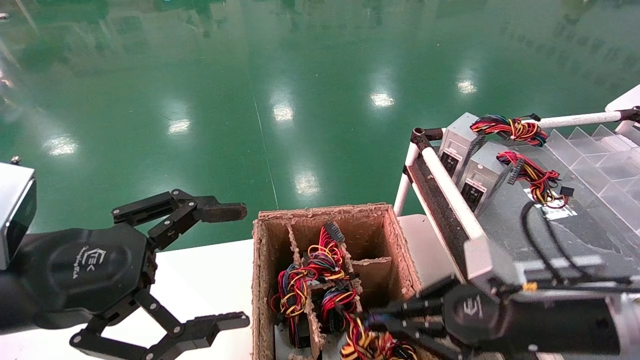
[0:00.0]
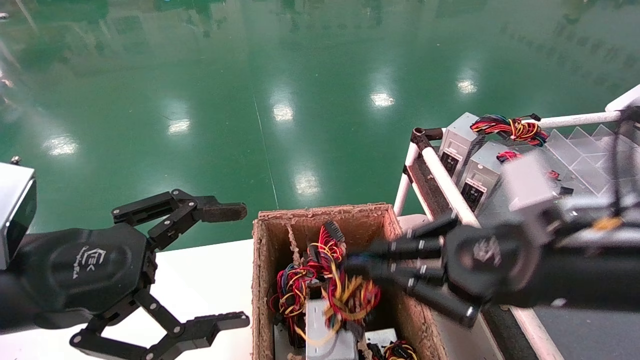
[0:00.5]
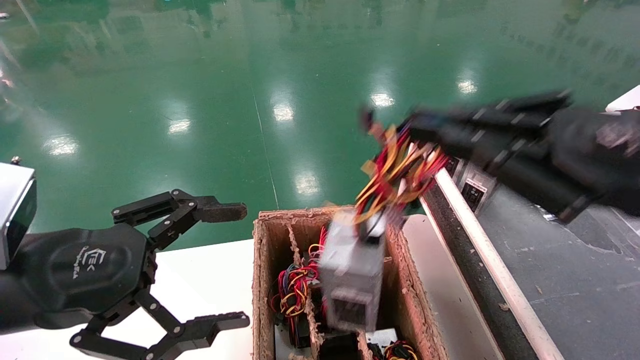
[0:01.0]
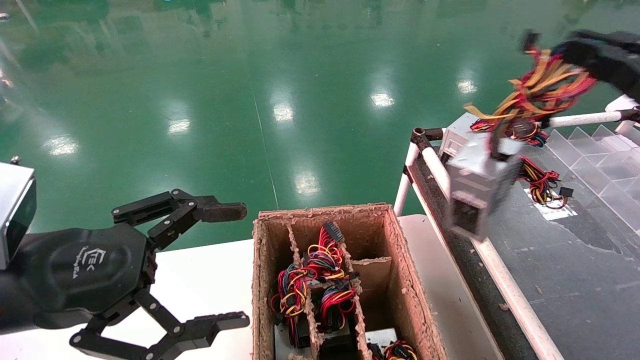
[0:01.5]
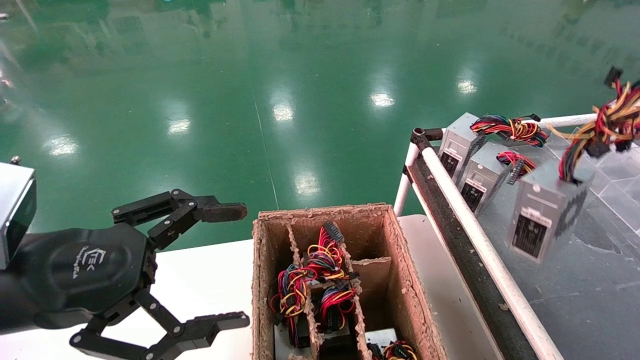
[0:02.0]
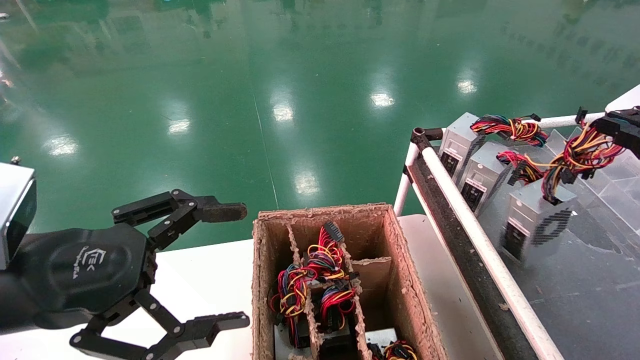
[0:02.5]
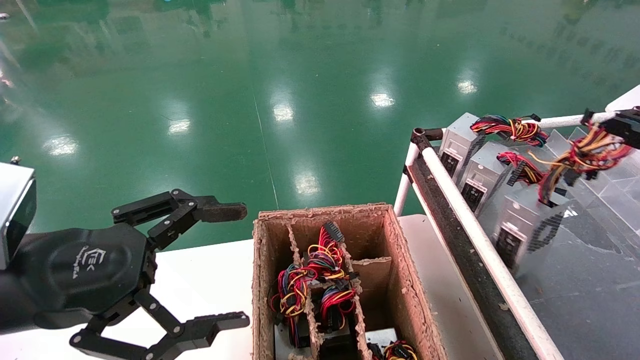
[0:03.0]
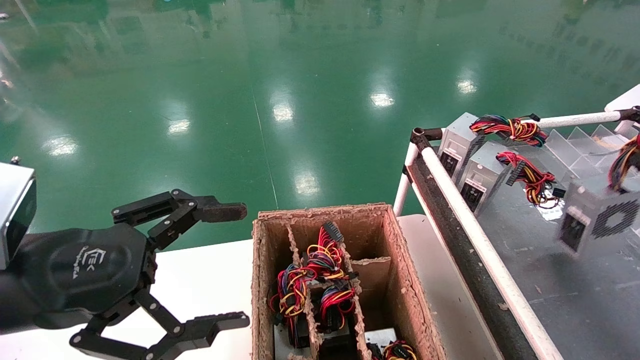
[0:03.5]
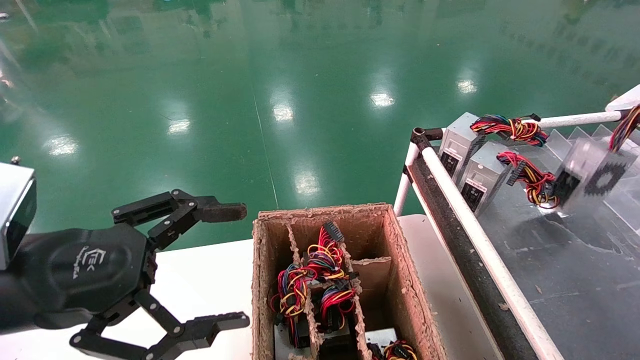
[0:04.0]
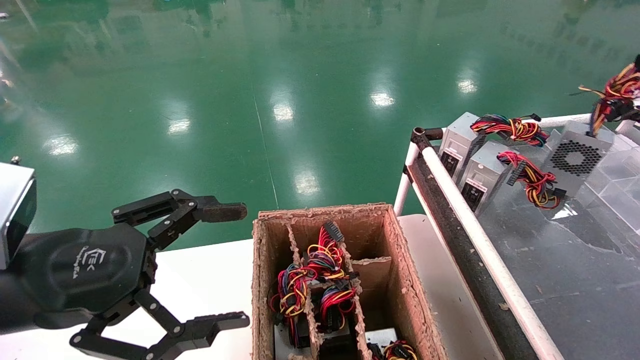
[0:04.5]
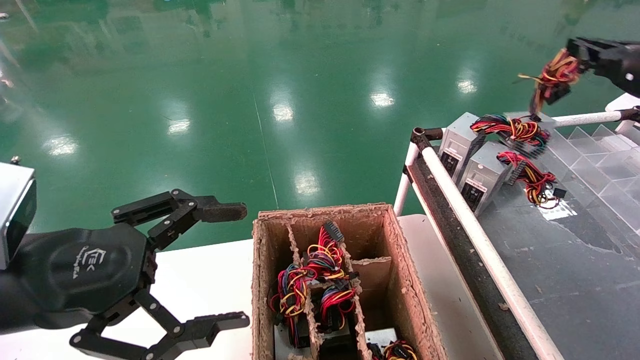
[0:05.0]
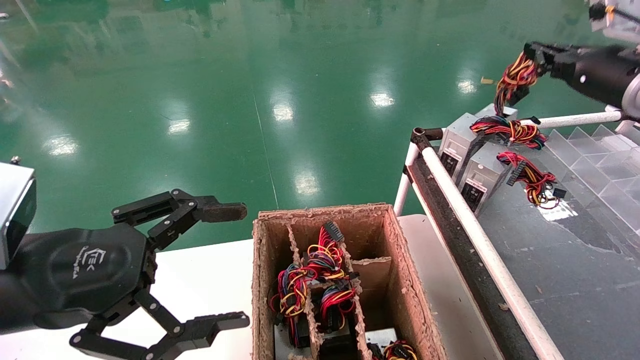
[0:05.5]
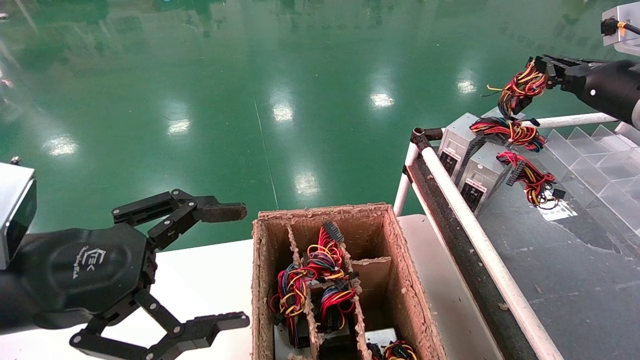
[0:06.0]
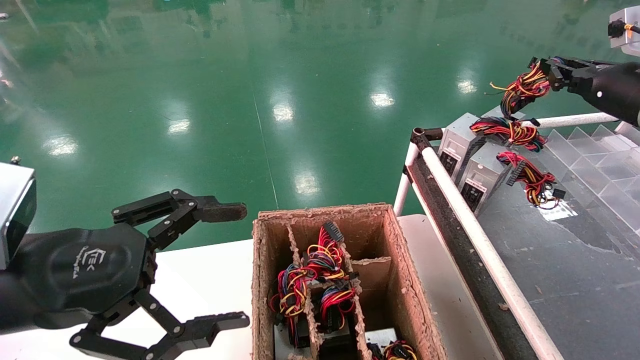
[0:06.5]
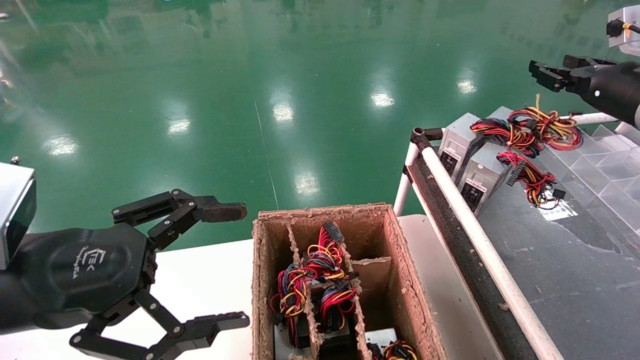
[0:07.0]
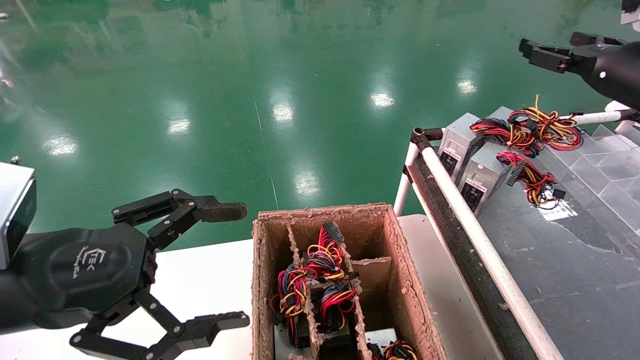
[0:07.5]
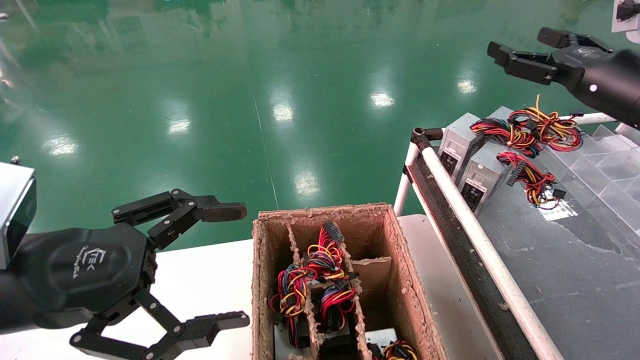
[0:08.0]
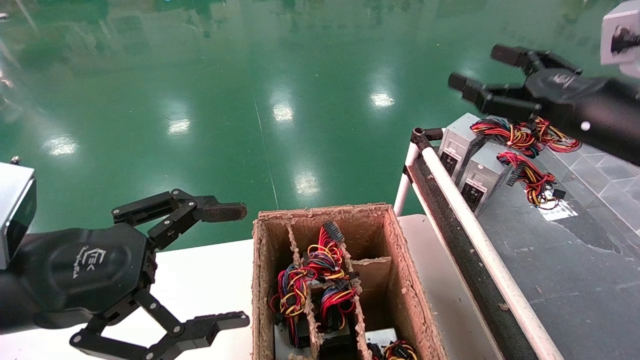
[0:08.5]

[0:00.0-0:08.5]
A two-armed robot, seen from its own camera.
Step, 0:00.0 to 0:06.0: Place the power supply on the operating table.
0:00.0 to 0:02.0: The right gripper is displaced to the right and upward by about 25 cm.
0:02.0 to 0:04.0: The right gripper moves forward and to the right, about 15 cm.
0:04.0 to 0:06.5: The right gripper shifts about 20 cm to the left and forward.
0:06.5 to 0:08.5: The right gripper heads backward and to the left, covering about 15 cm, and opens.

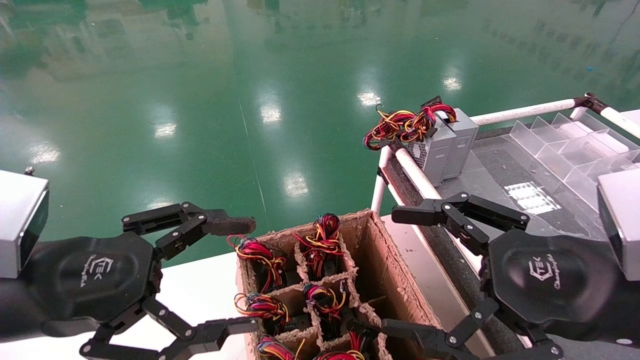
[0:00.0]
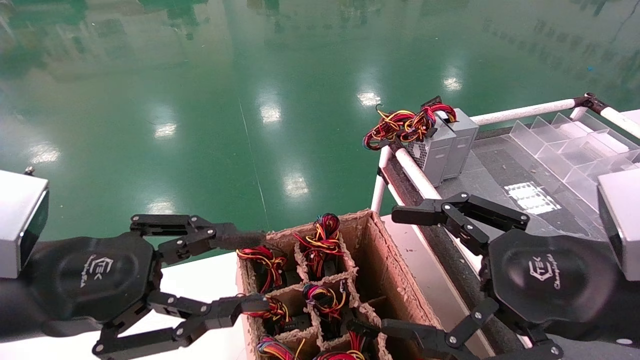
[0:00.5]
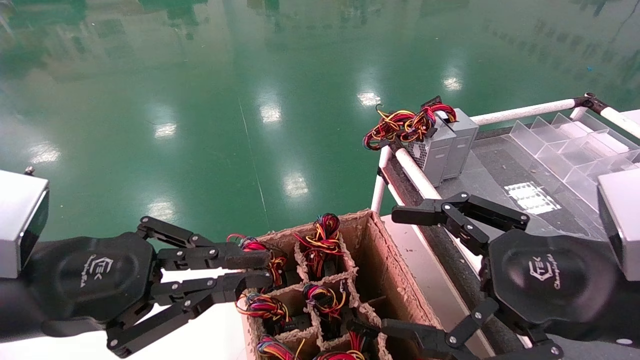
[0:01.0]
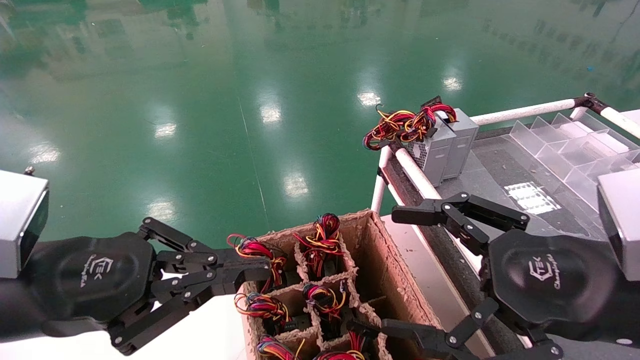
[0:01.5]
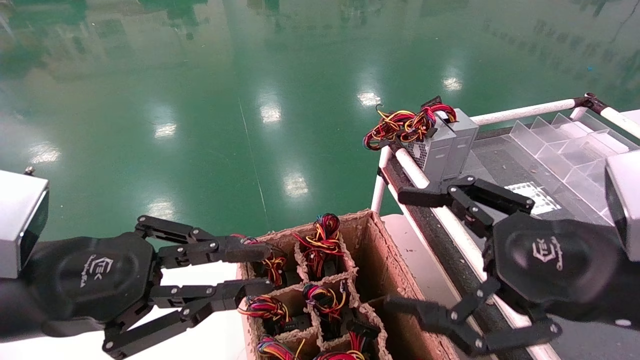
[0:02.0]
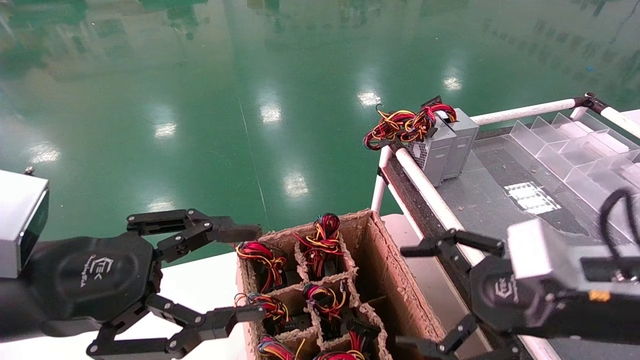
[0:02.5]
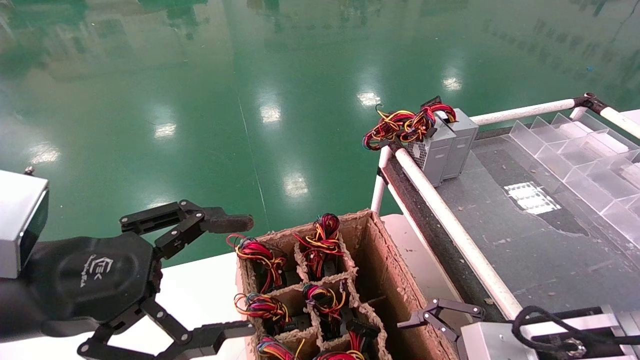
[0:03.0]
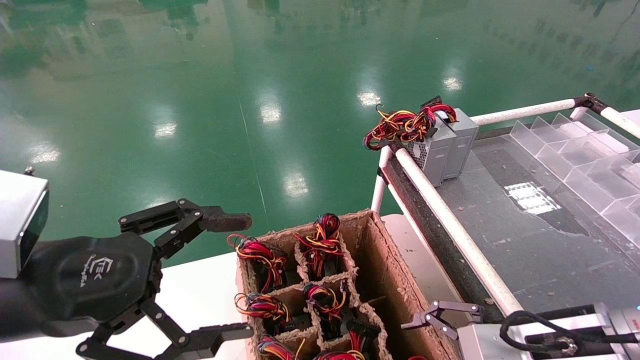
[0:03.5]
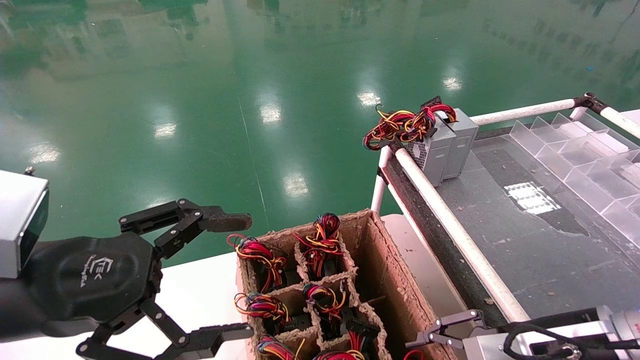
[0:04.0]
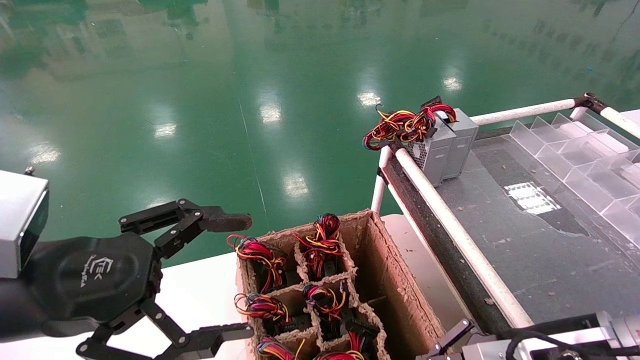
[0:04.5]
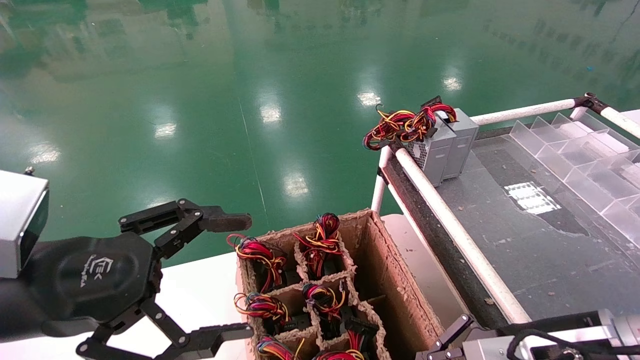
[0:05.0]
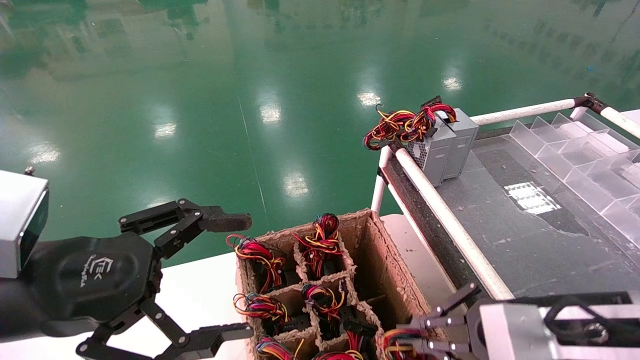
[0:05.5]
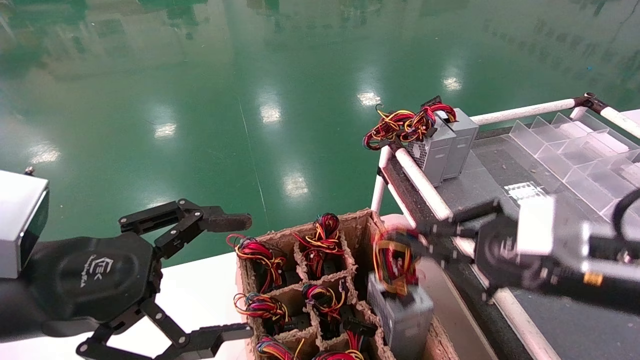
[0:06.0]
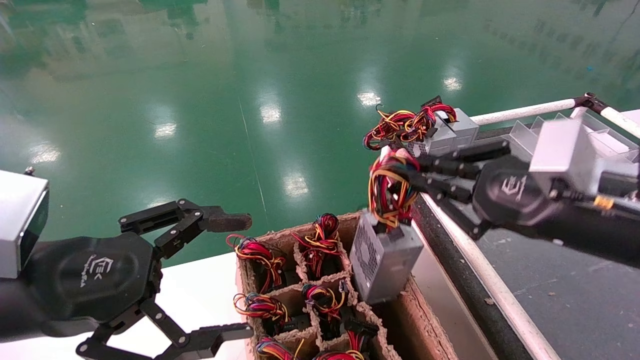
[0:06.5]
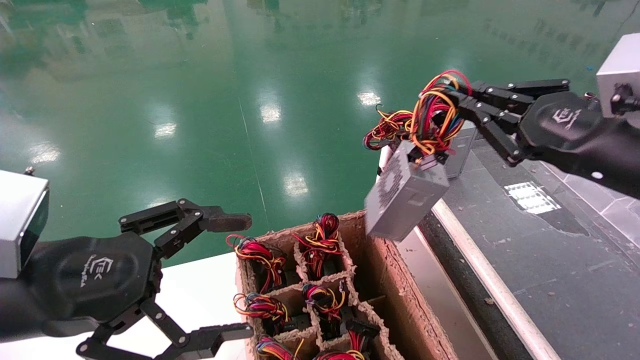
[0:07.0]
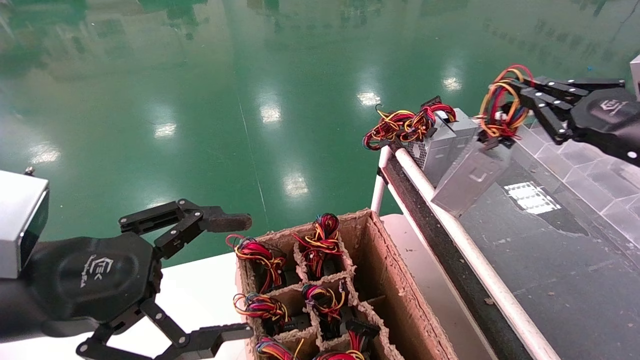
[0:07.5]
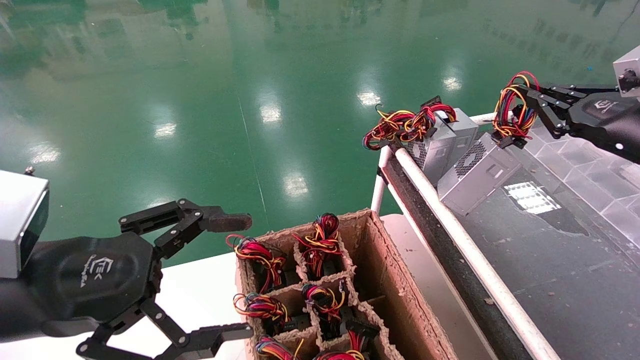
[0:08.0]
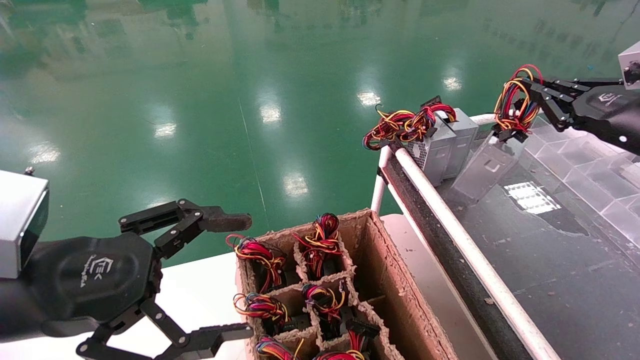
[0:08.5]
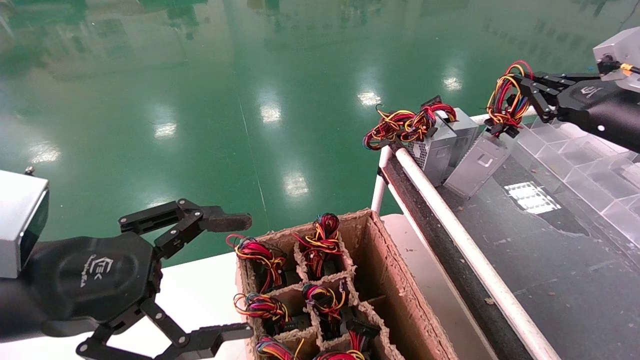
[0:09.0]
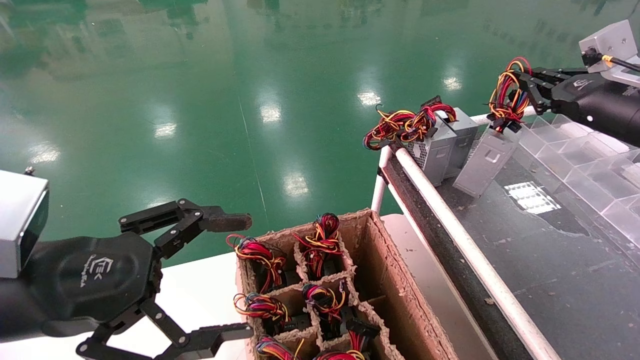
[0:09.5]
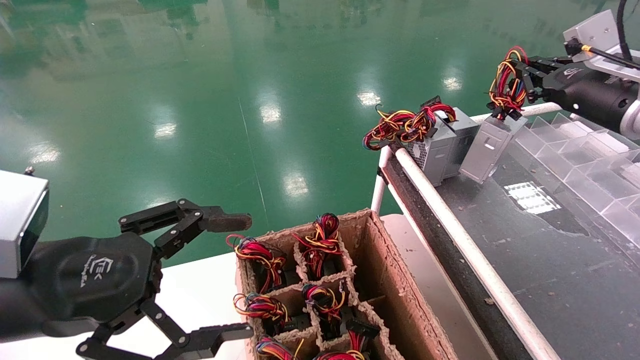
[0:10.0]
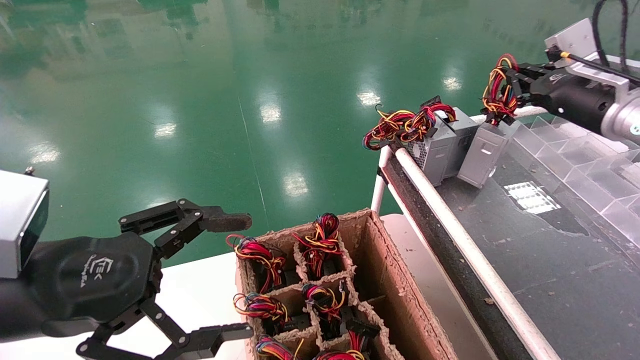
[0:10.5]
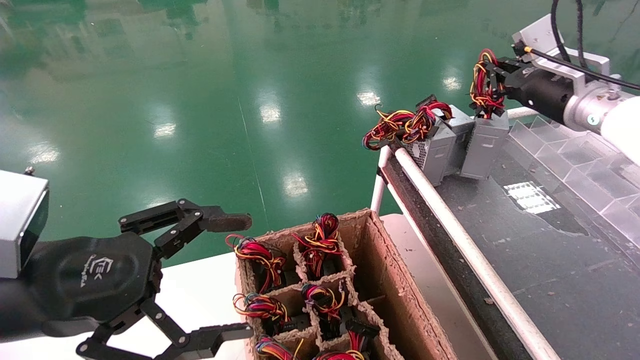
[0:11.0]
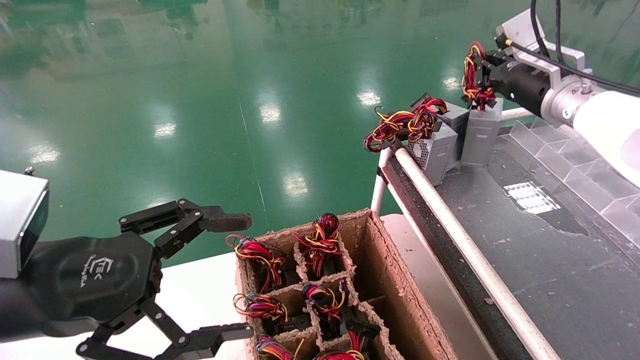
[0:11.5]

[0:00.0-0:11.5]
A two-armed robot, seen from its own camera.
Step, 0:01.5 to 0:04.5: Grab and lift the power supply from the large box.
0:00.0 to 0:02.0: The left gripper closes its fingers.
0:02.0 to 0:04.0: The left gripper opens. Meanwhile the right gripper shifts about 10 cm downward, and closes.
0:04.0 to 0:06.0: The right gripper goes approximately 10 cm upward, and closes.
0:06.0 to 0:07.5: The right gripper moves to the right, upward and forward, some 15 cm.
0:07.5 to 0:09.5: The right gripper goes some 10 cm forward.
0:09.5 to 0:11.5: The right gripper heads to the left and forward, covering about 10 cm.
